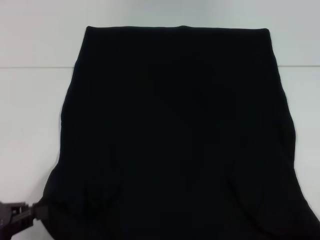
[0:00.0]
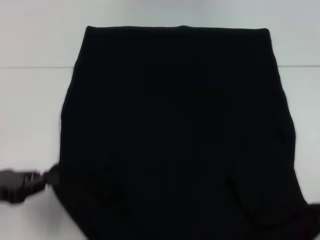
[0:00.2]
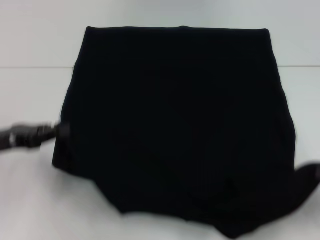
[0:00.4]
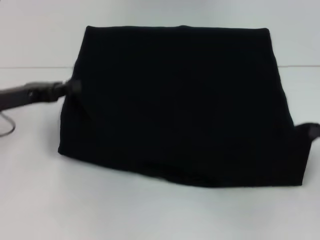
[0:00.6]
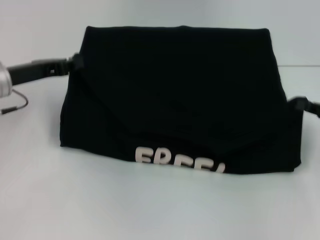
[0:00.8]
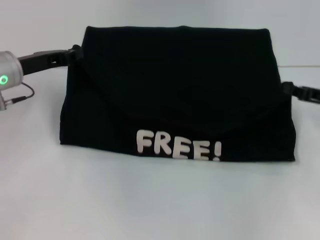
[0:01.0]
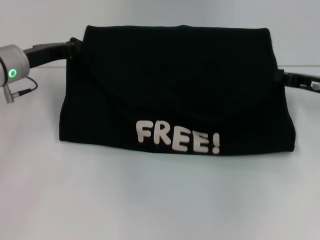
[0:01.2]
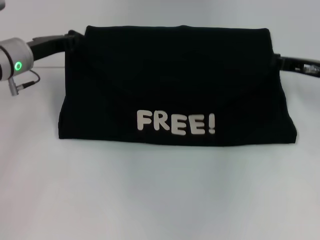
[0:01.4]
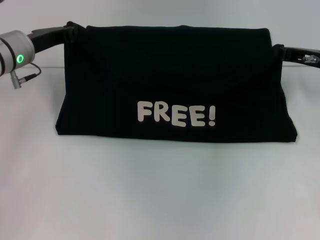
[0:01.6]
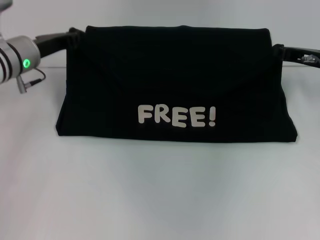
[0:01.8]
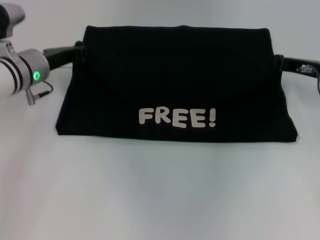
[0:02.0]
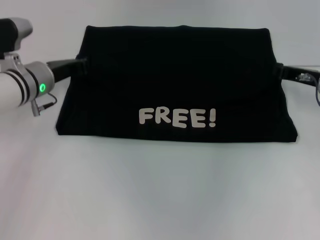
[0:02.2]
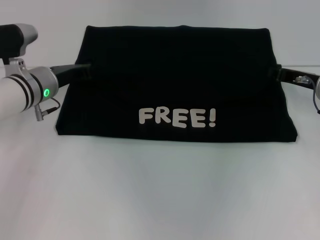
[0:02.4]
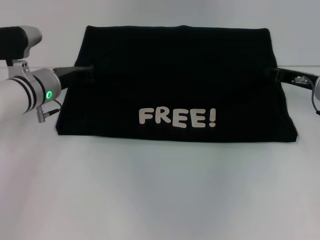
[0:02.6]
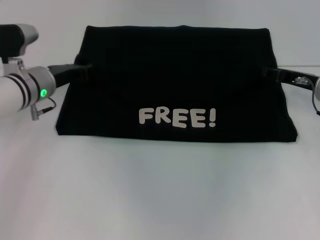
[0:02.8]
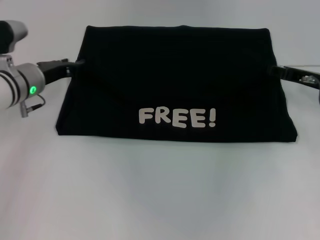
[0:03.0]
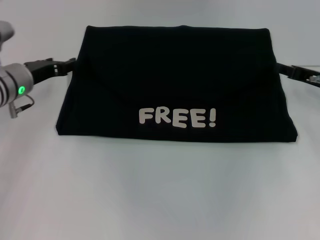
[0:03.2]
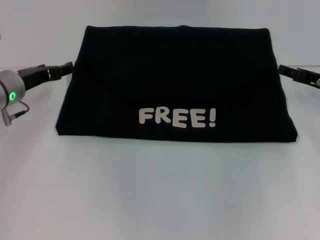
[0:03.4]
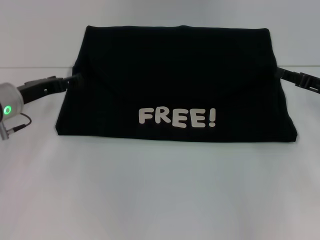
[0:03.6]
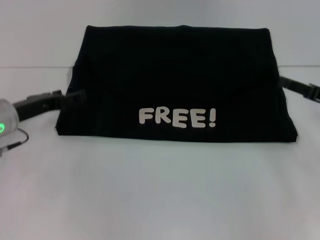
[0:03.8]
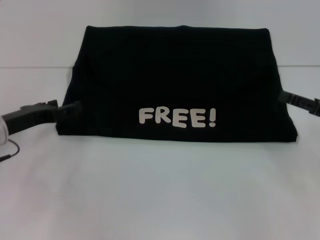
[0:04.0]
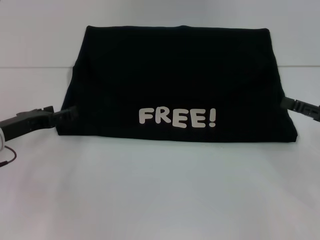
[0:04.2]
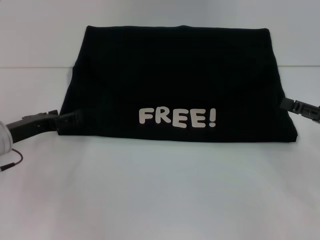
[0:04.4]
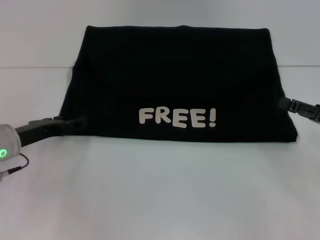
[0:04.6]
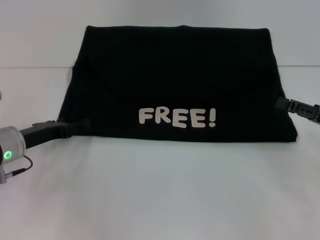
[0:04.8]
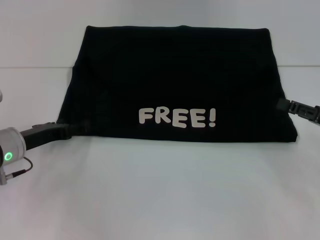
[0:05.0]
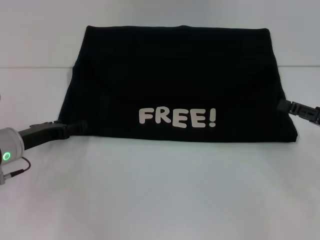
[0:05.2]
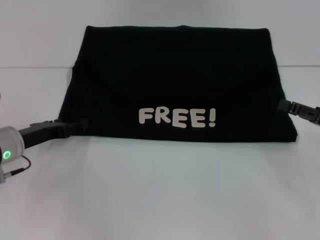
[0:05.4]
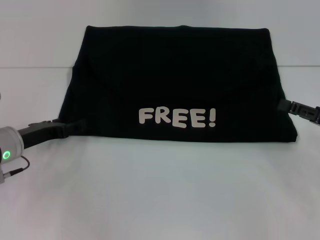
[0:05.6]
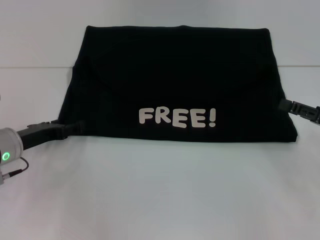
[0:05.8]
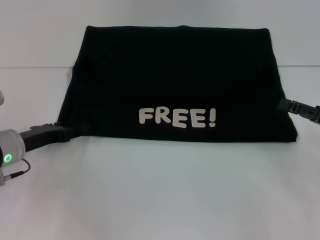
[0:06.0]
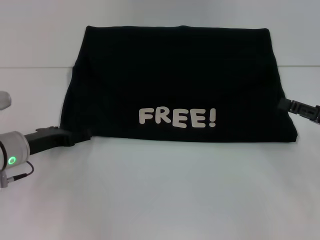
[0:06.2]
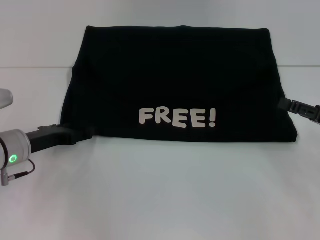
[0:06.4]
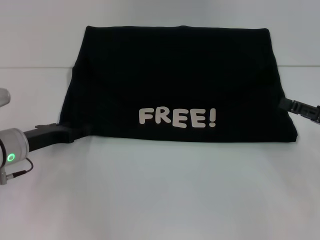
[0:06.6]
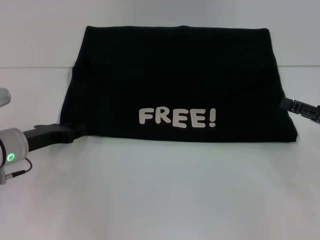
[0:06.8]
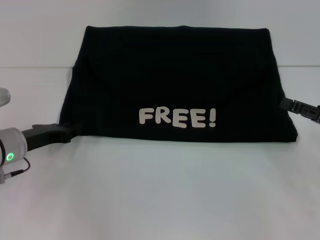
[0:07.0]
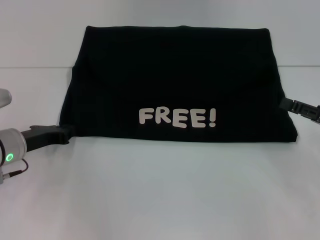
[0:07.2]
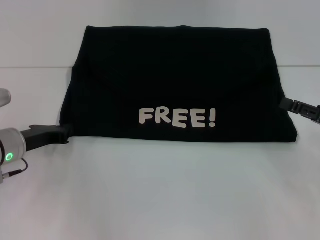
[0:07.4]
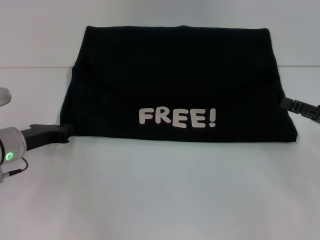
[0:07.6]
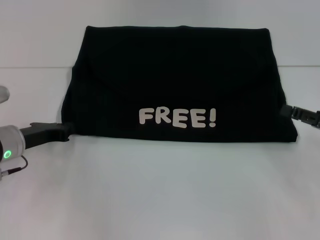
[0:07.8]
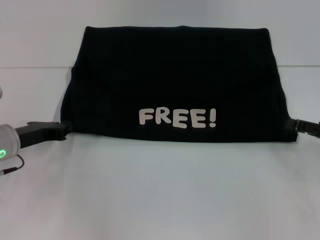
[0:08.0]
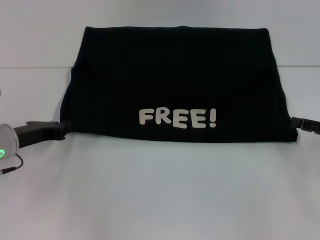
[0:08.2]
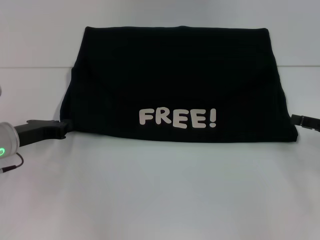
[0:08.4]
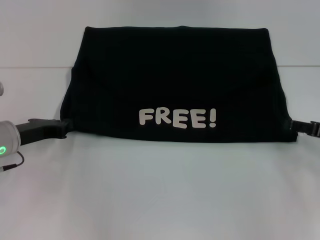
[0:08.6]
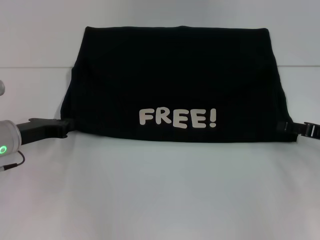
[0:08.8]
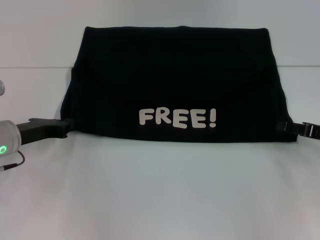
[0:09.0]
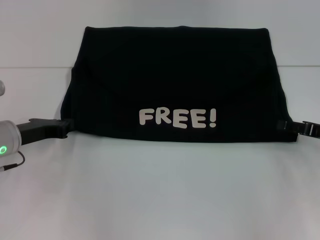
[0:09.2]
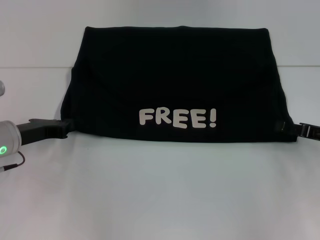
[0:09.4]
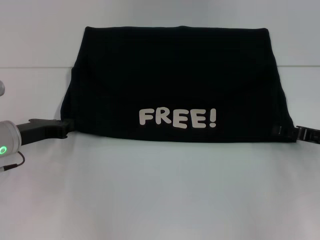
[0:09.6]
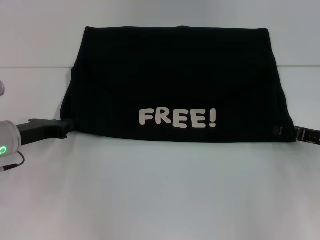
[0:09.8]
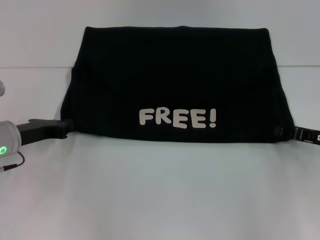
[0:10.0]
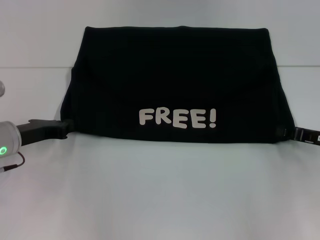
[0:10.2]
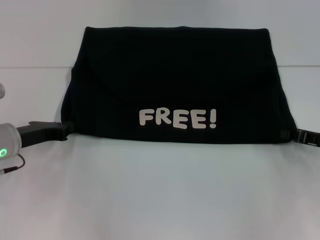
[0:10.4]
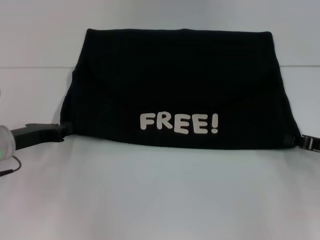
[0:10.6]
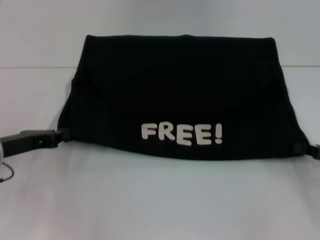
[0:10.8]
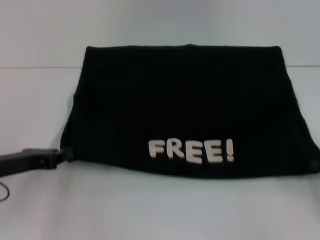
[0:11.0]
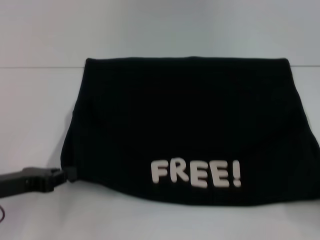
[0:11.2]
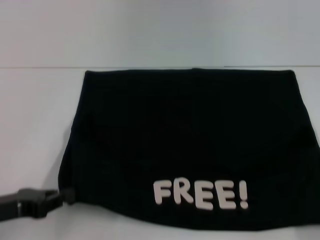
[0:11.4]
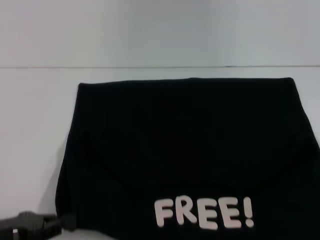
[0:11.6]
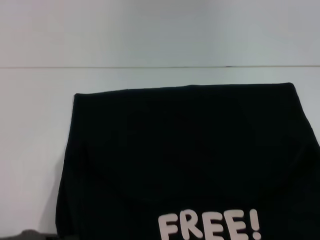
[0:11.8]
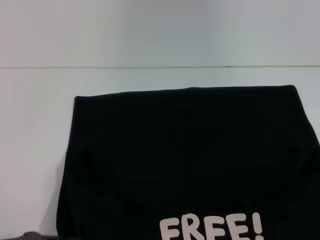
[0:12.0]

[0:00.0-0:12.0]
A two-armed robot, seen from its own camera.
Step, 0:00.0 to 0:03.0: Fold the clothes with your left hand.
Step, 0:00.0 to 0:03.0: Fold the clothes with your right hand.
Step, 0:03.2 to 0:12.0: Pull the clothes with your left hand.
Step, 0:03.2 to 0:12.0: Pull the clothes with your right hand.
0:00.0 to 0:01.6: The two grippers go about 30 cm forward.
0:01.6 to 0:03.0: The right gripper opens.
0:03.0 to 0:04.4: The right gripper shifts about 10 cm backward and to the right; the left gripper goes roughly 10 cm backward, and opens.
0:04.4 to 0:06.0: The grippers make only small movements.
0:06.0 to 0:07.6: The left gripper closes its fingers.
0:09.0 to 0:10.4: The right gripper closes.
0:10.4 to 0:12.0: The right gripper goes roughly 25 cm backward and to the right; the left gripper shifts roughly 15 cm backward.

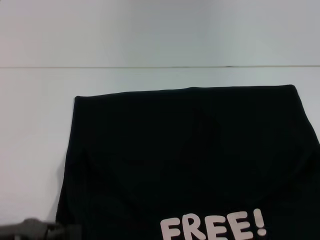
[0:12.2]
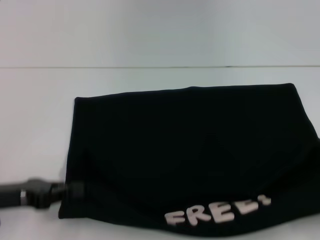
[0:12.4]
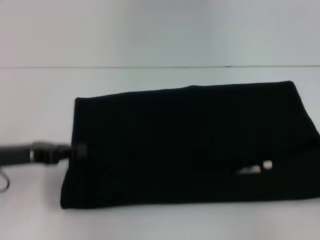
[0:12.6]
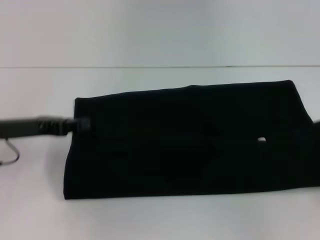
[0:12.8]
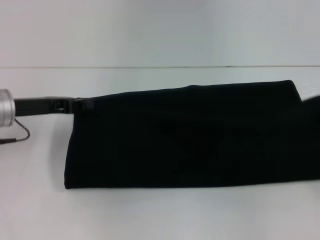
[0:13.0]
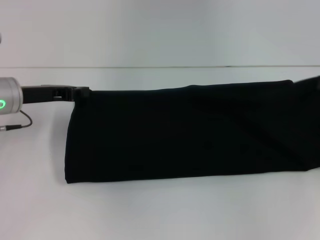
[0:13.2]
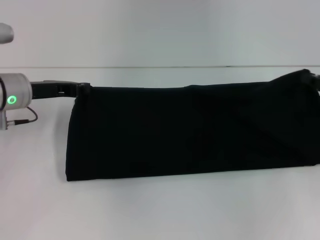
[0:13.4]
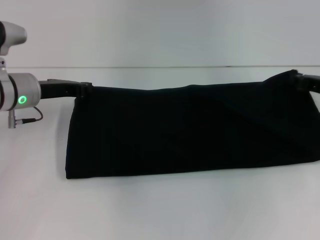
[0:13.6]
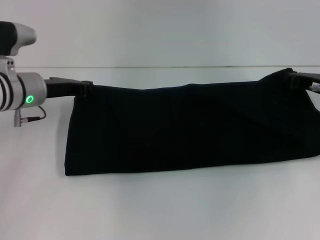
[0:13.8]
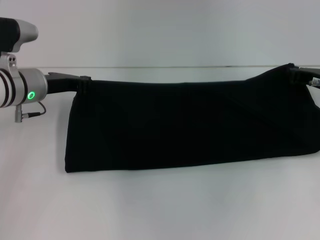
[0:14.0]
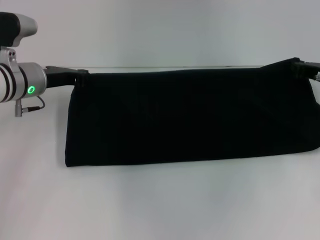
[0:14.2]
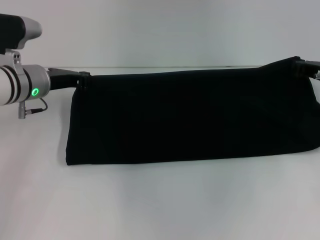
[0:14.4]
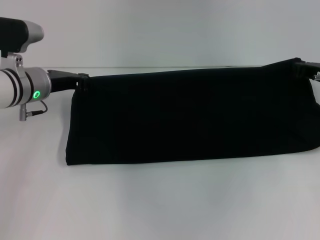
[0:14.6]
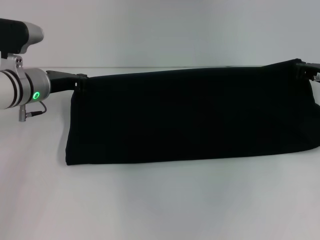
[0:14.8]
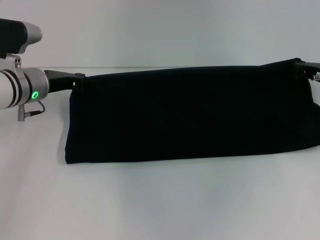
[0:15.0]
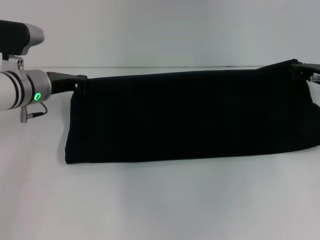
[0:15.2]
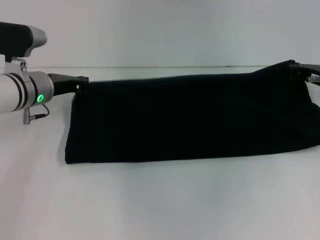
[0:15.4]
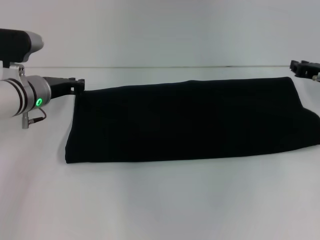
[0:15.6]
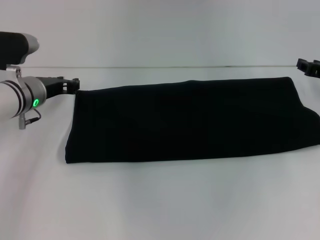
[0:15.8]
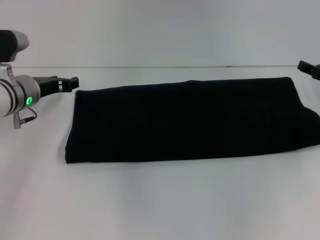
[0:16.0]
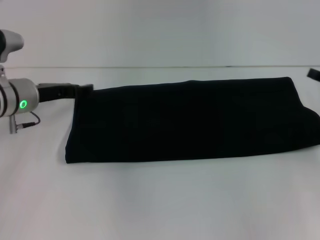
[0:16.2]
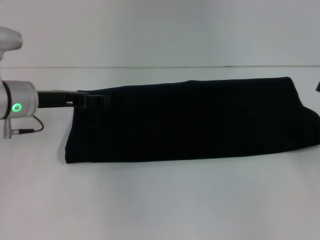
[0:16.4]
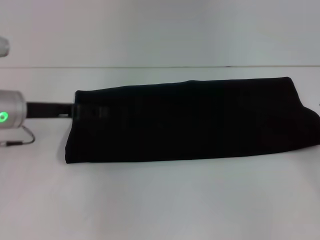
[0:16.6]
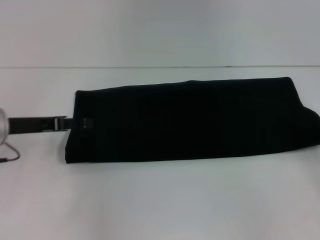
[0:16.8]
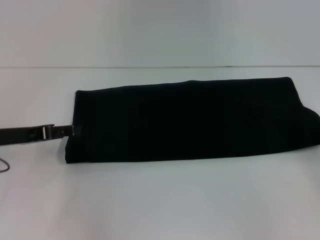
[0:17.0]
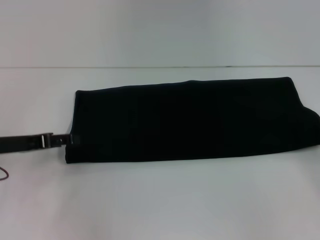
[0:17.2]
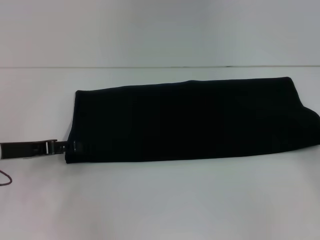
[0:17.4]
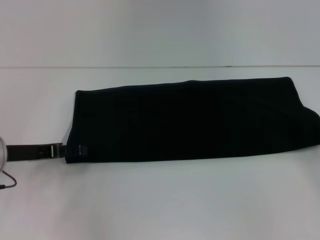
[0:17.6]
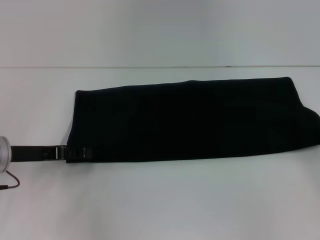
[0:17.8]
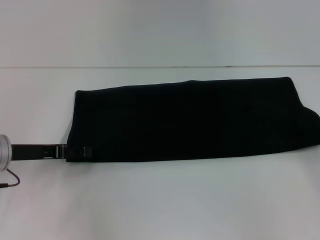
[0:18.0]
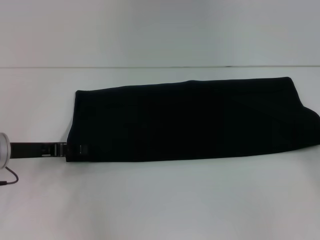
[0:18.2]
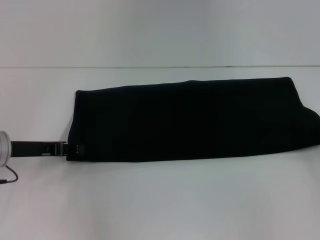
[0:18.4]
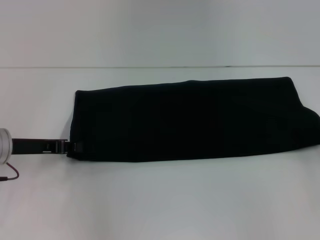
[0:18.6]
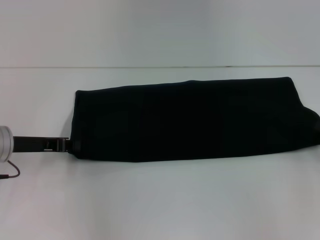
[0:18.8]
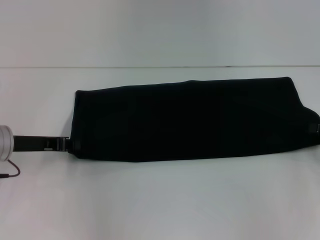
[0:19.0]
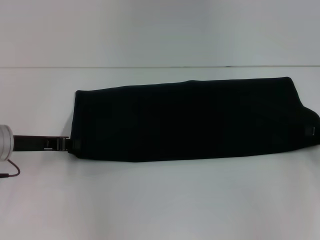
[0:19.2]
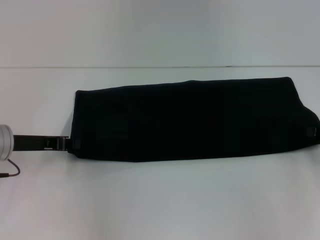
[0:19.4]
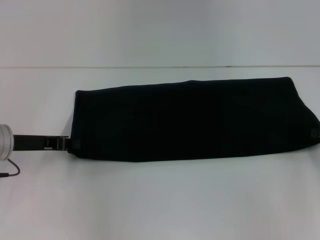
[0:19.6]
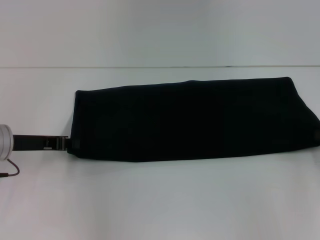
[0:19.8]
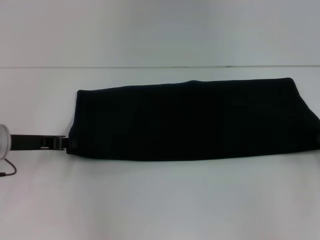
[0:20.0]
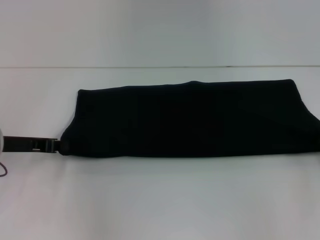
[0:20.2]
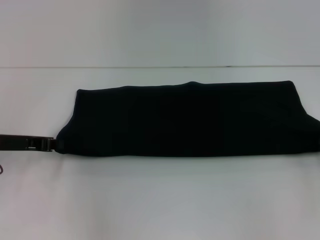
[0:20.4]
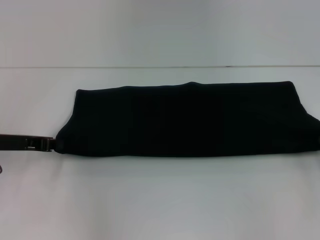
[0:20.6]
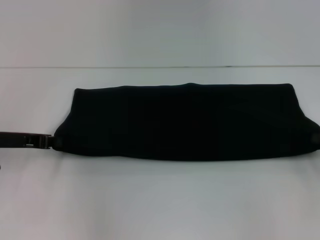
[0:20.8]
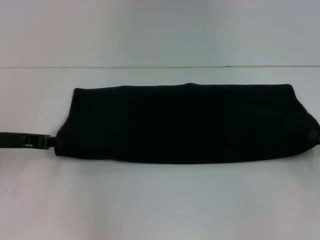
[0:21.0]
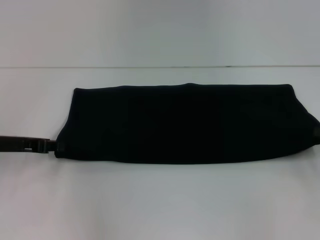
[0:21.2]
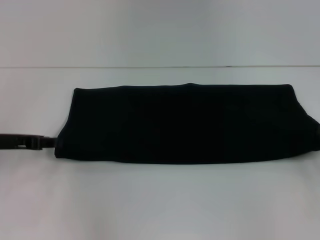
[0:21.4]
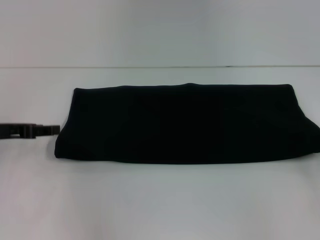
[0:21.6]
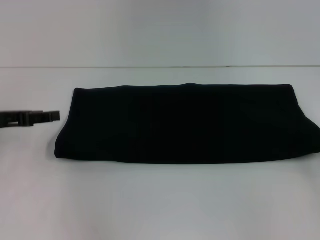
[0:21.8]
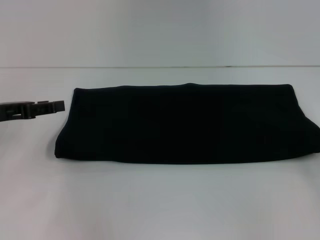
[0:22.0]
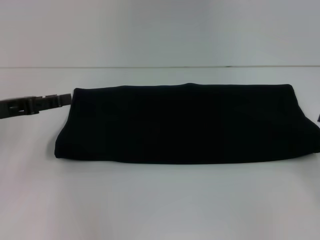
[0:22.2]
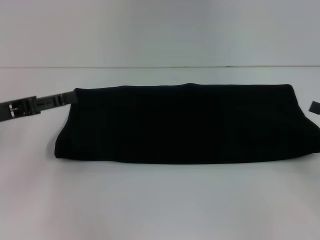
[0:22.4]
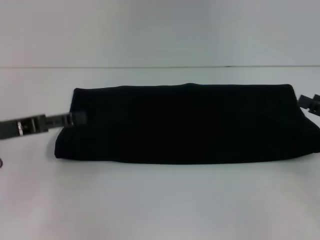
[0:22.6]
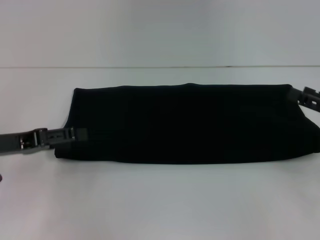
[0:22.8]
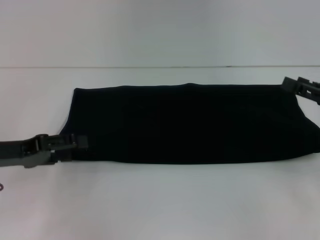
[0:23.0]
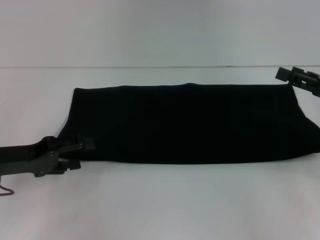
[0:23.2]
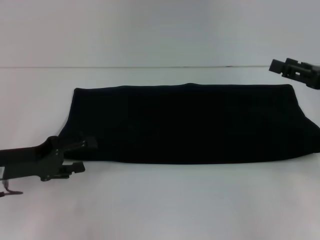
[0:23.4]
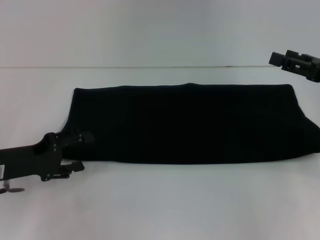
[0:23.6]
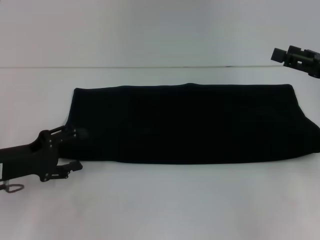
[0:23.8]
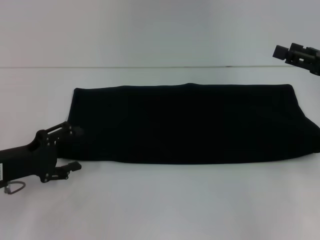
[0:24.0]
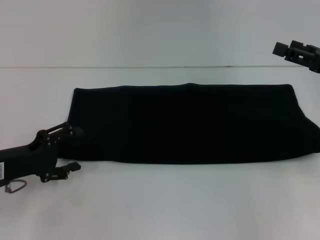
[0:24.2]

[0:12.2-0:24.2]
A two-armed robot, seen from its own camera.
Step, 0:12.2 to 0:15.8: Fold the clothes with your right hand.
0:12.2 to 0:13.8: The left gripper is displaced forward by roughly 20 cm, while the right gripper moves forward and to the left, roughly 30 cm.
0:13.8 to 0:15.2: There are only small adjustments of the grippers.
0:15.2 to 0:16.6: The right gripper shifts about 15 cm backward and to the right, and opens up. Meanwhile the left gripper is displaced backward by roughly 5 cm, and opens.
0:16.6 to 0:18.2: The left gripper moves roughly 5 cm.
0:18.2 to 0:19.8: The left gripper closes.
0:19.8 to 0:21.2: There are only small adjustments of the grippers.
0:21.2 to 0:22.6: The right gripper opens. The left gripper changes place by roughly 5 cm, and opens its fingers.
0:22.6 to 0:24.2: The right gripper heads forward and upward, covering about 10 cm. The left gripper moves downward, about 5 cm.
